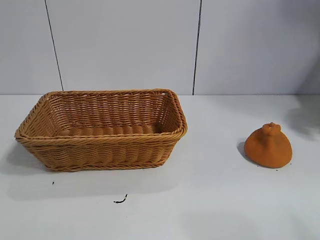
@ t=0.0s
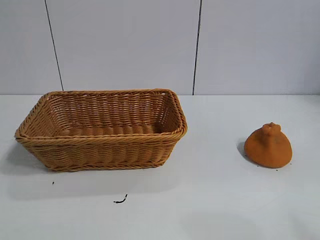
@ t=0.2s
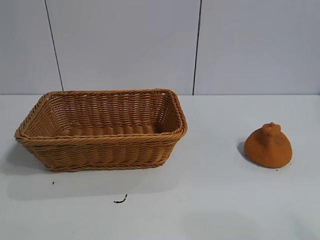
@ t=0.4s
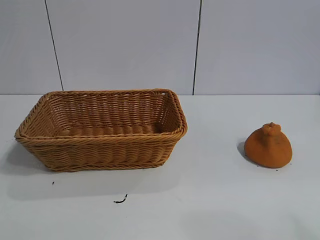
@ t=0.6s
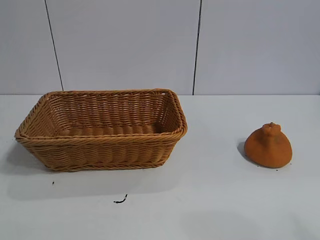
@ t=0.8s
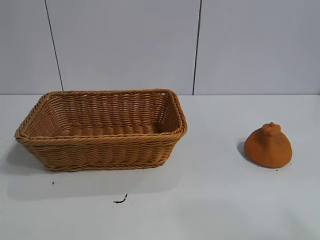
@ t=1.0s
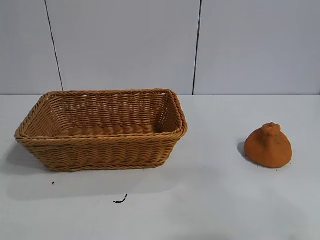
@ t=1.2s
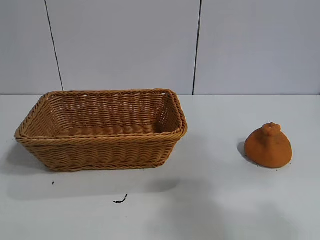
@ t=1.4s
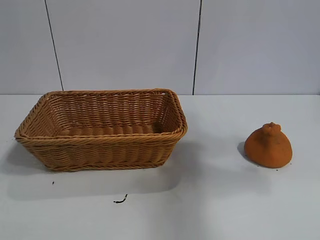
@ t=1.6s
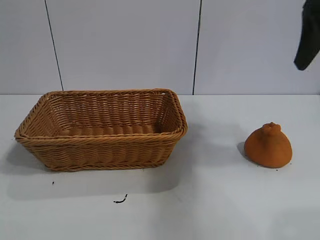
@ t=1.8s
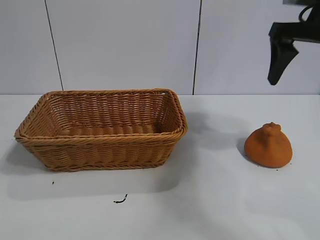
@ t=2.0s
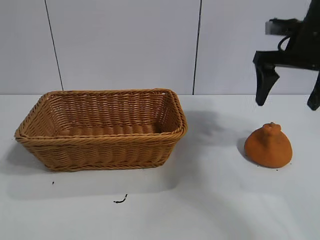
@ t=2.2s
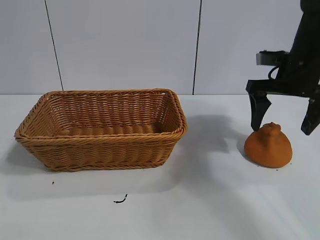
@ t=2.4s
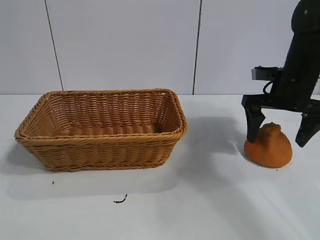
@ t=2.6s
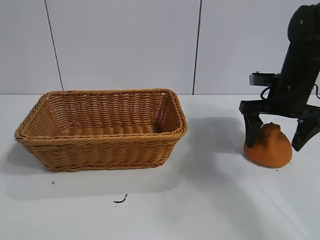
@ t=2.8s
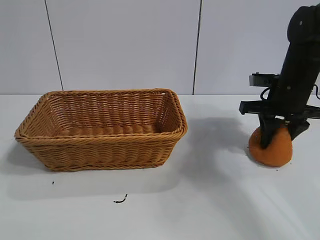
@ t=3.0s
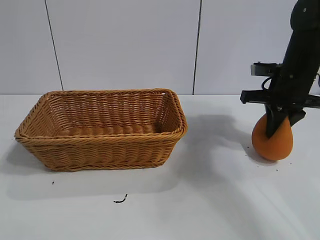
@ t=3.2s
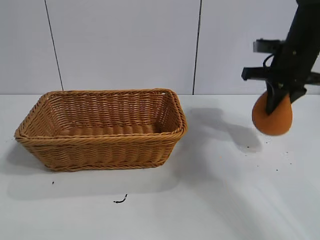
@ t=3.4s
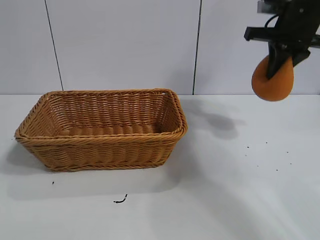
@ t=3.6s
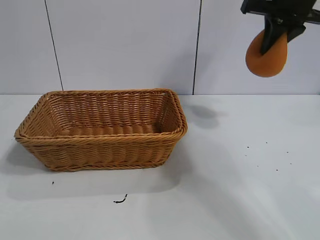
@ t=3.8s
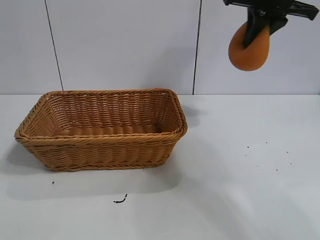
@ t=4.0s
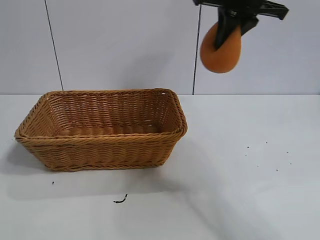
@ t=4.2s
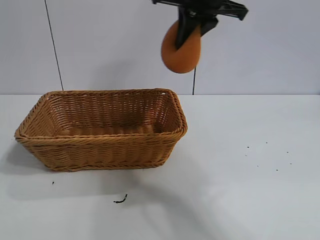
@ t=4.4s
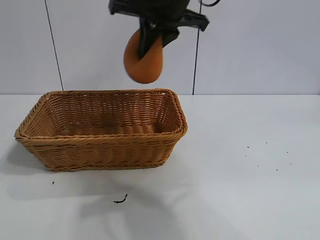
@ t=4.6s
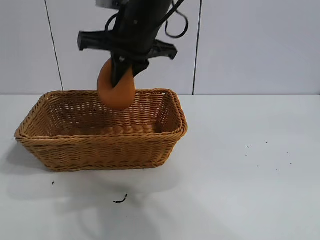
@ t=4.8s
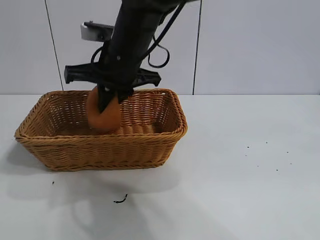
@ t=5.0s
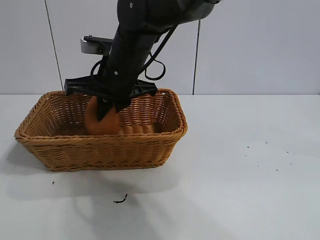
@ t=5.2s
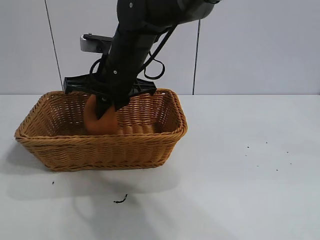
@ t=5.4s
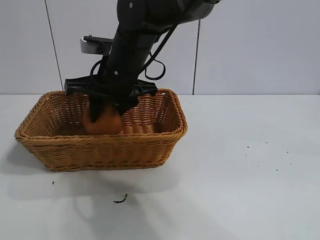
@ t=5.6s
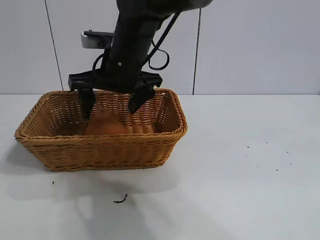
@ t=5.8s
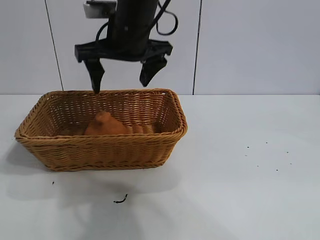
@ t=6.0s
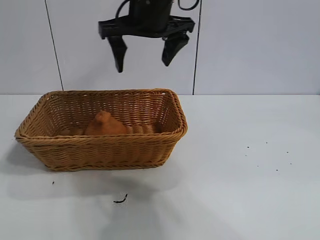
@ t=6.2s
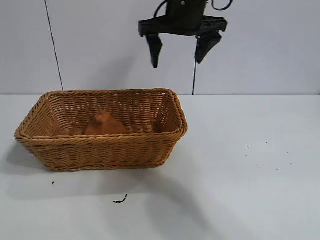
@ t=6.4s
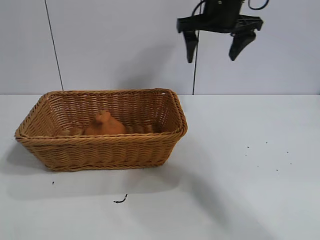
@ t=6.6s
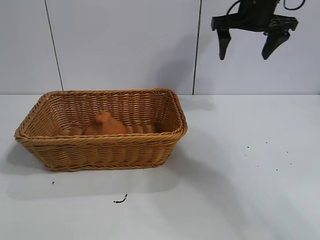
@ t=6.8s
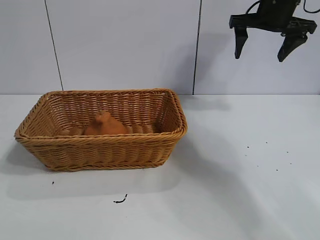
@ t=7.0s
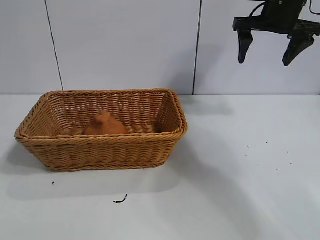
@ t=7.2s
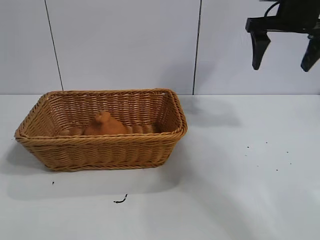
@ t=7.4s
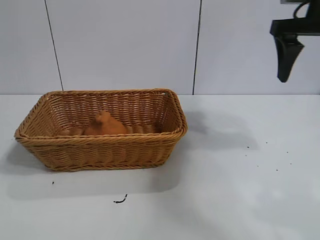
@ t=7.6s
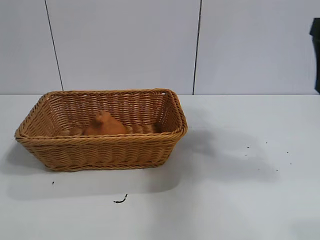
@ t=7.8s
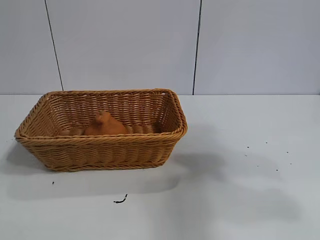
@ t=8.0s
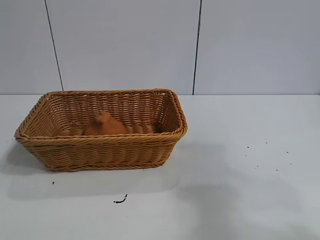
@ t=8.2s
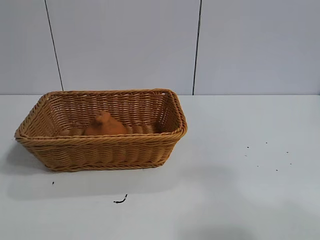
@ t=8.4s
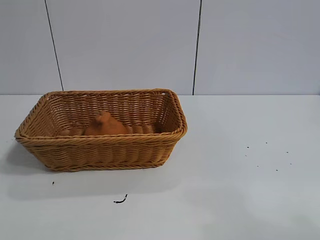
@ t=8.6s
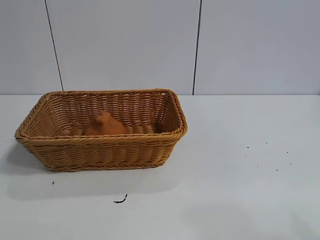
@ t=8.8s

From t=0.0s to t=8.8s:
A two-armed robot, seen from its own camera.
Task of the whole recording: pick up the orange and put it into the basket.
Step, from t=0.8s to t=3.0s: Grasp the orange with right gripper.
Step, from t=3.2s to t=5.8s: Place the orange in the basket with right gripper.
